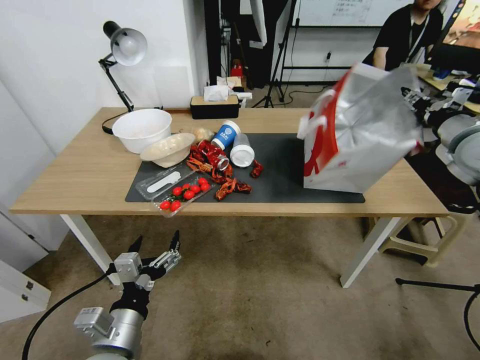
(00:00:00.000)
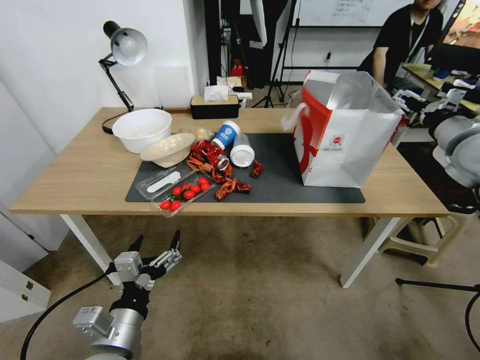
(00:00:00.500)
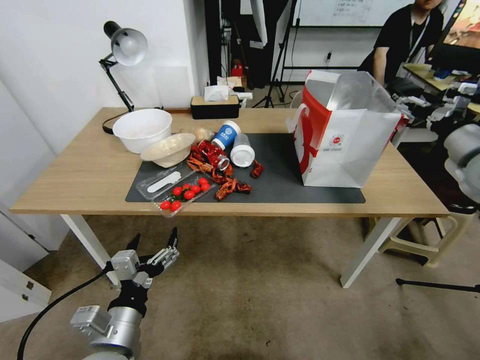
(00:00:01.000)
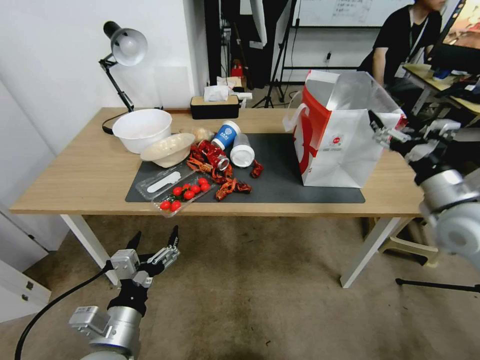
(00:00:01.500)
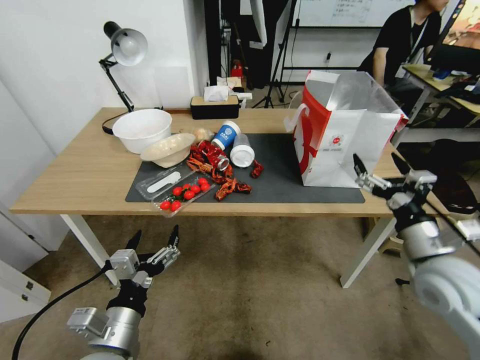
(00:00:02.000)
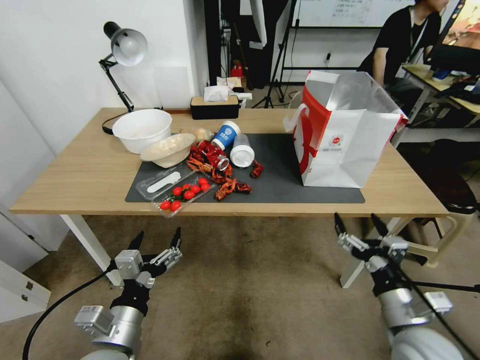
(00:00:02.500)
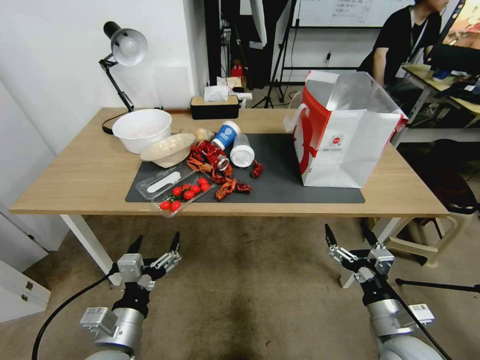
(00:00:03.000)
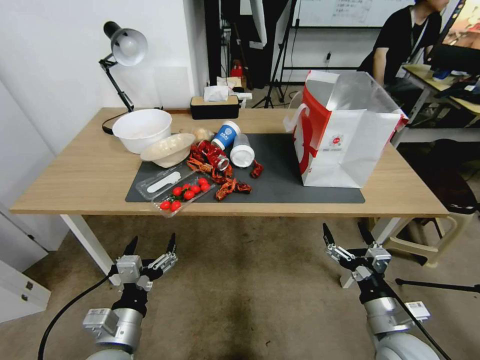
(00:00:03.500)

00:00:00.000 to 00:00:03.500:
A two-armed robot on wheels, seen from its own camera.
Task of the whole recording: Pick up the food delivery bag from the floor and place it on the table.
00:00:00.000 to 00:00:02.000: The right gripper travels backward, downward and to the left by some 25 cm, and opens.
00:00:02.000 to 00:00:03.500: The right gripper is displaced downward and backward by roughly 15 cm.
